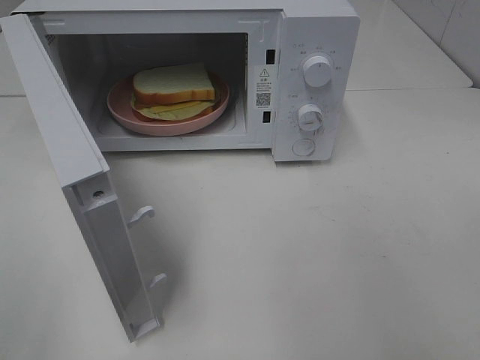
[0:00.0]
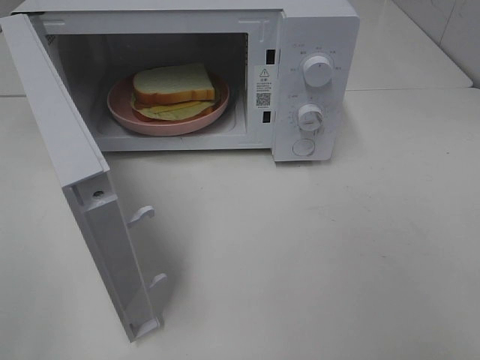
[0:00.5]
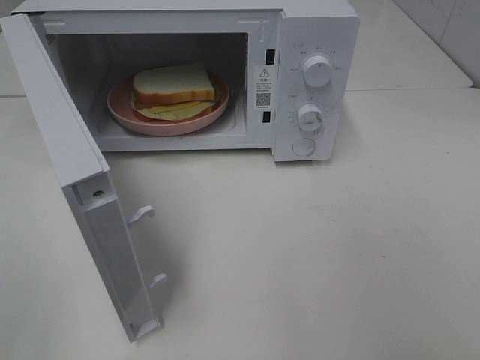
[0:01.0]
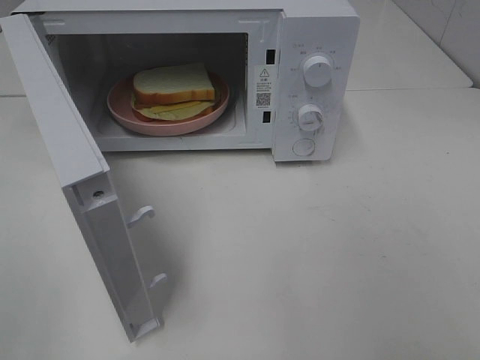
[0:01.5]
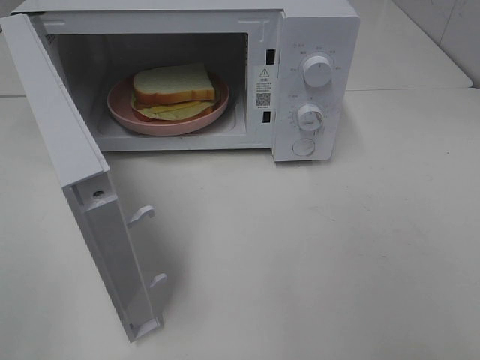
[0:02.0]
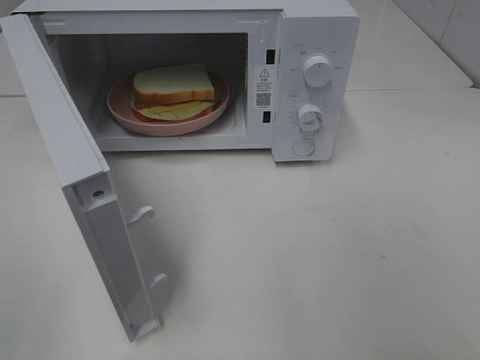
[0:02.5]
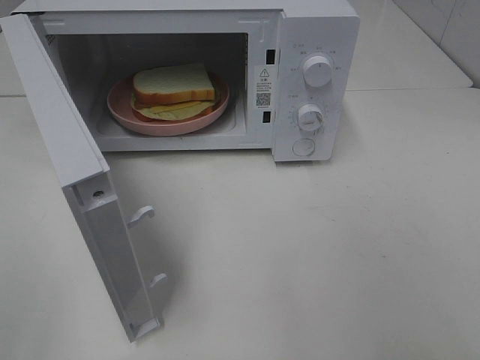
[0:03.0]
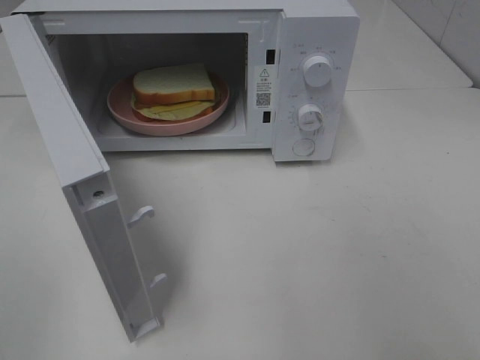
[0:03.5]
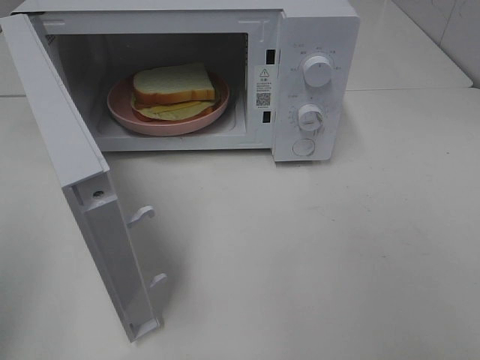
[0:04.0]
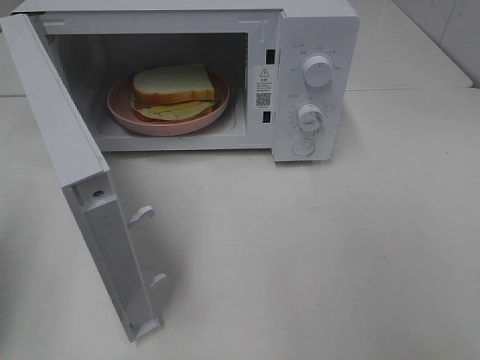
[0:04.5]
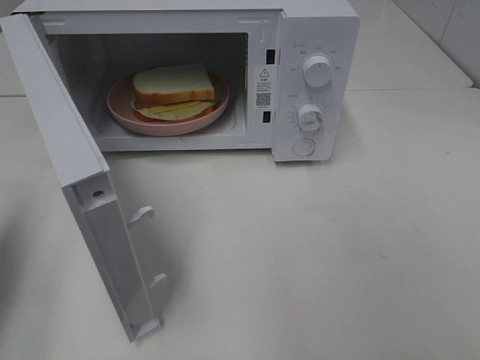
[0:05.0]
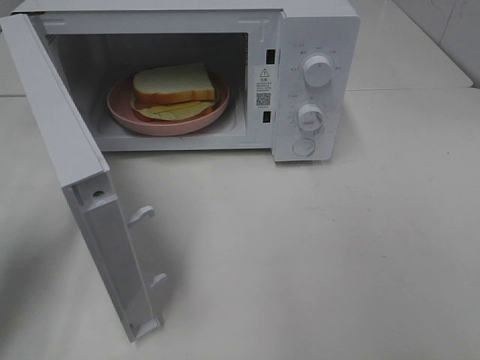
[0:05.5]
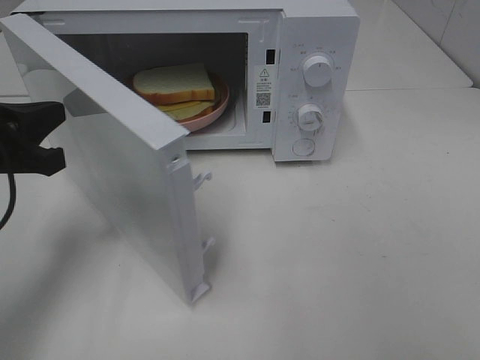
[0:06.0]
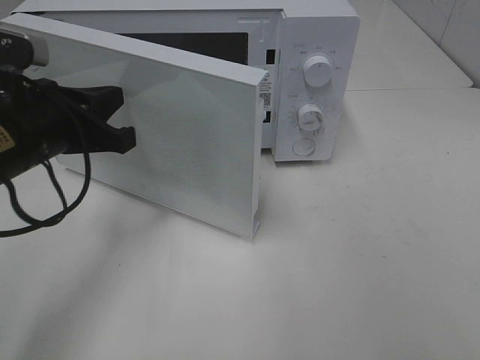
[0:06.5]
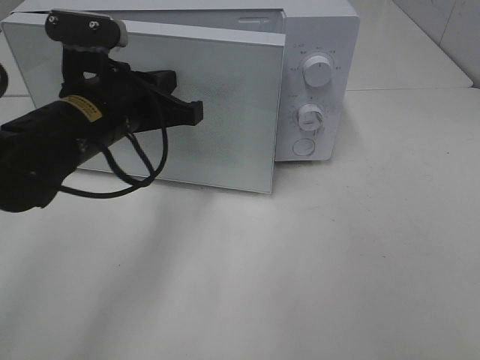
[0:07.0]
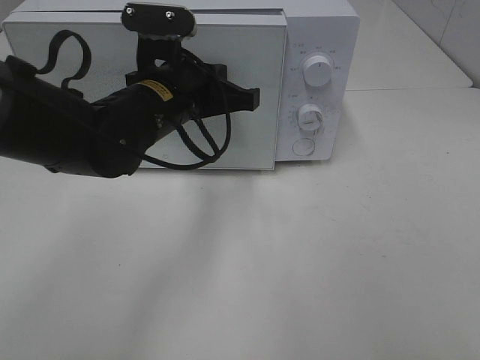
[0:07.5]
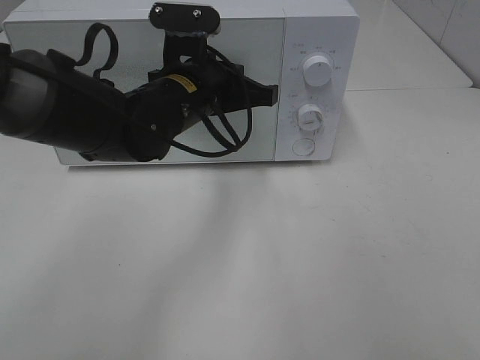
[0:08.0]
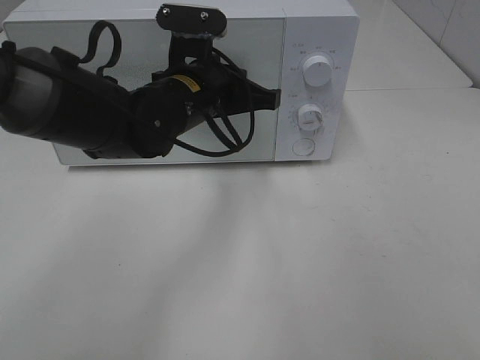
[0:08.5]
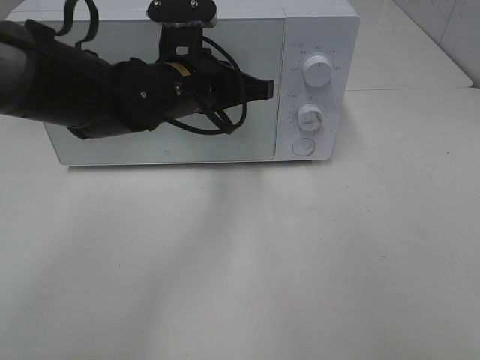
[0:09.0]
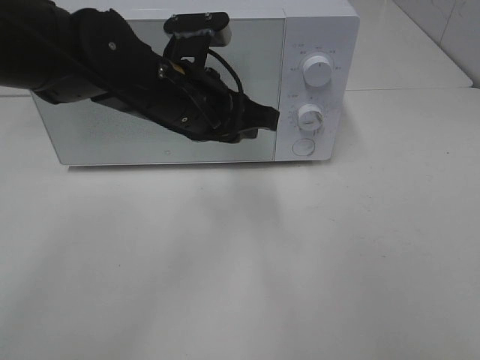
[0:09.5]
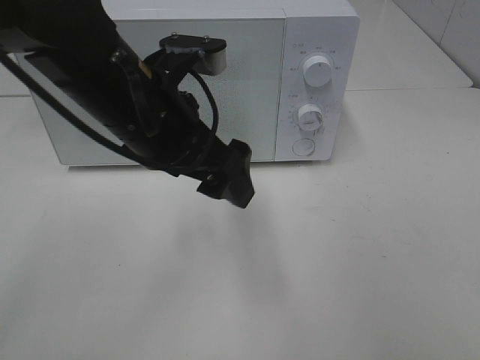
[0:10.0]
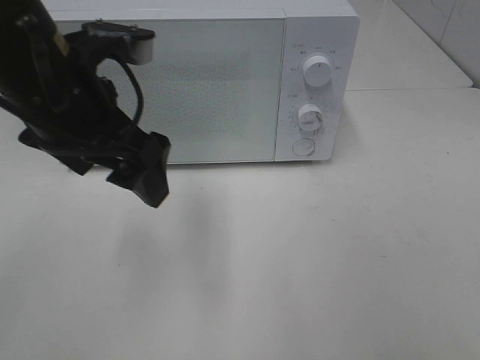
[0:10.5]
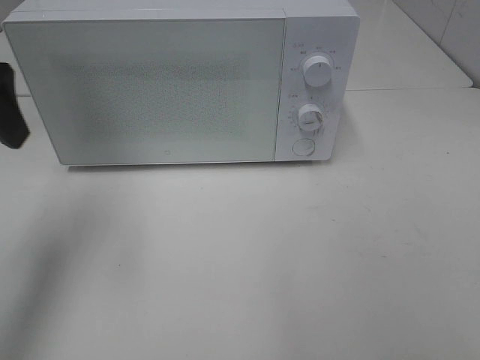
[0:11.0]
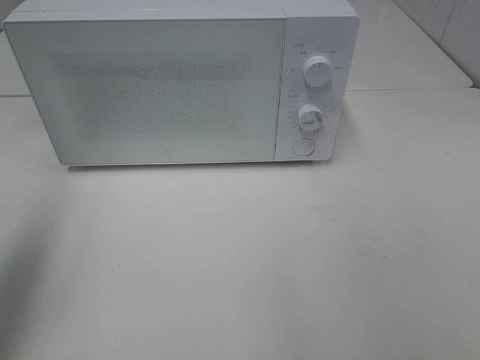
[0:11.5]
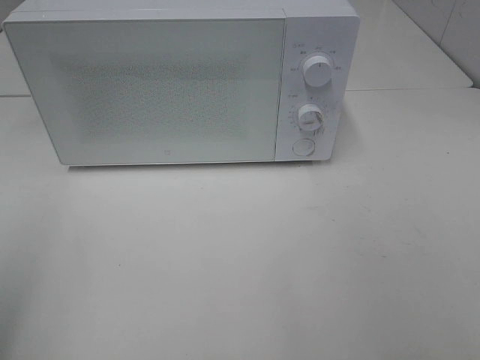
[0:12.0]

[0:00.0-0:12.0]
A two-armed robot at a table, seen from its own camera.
Task of the whole recording: Heat Sandwich.
Step, 0:00.0 to 0:09.5: Left hand: close the microwave door.
0:04.0 to 0:06.0: The left gripper goes about 20 cm forward, downward and to the right.
0:06.0 to 0:08.0: The left gripper heads to the right and forward, covering about 20 cm.
0:08.0 to 0:10.0: The left gripper is displaced backward and upward by approximately 10 cm, and opens.
0:10.0 to 0:12.0: The left gripper is displaced to the left and backward by roughly 30 cm.

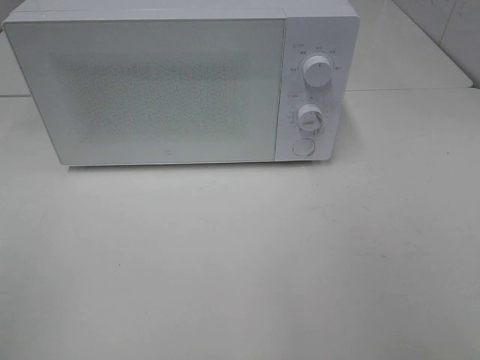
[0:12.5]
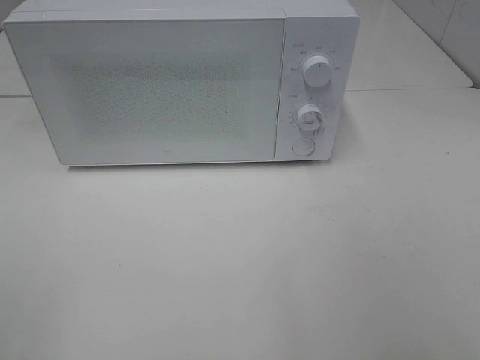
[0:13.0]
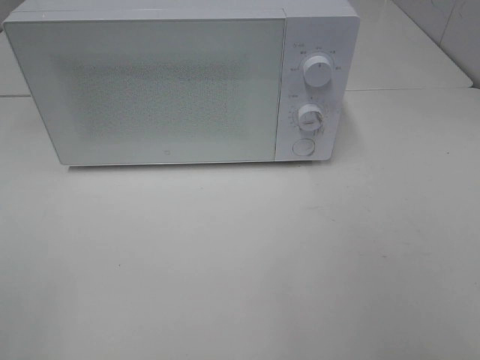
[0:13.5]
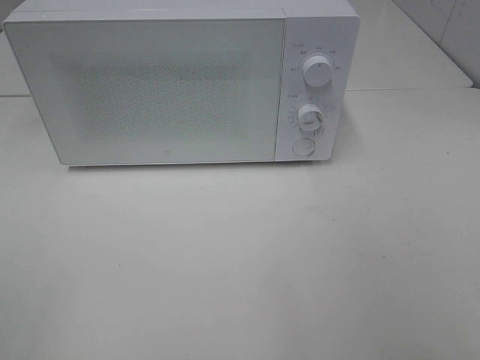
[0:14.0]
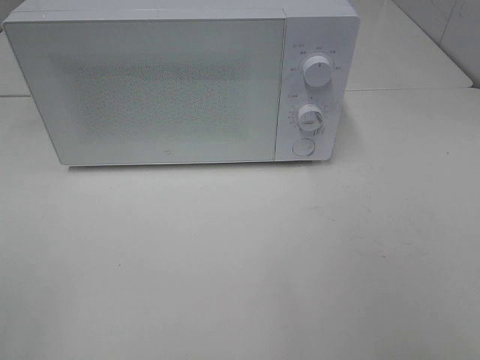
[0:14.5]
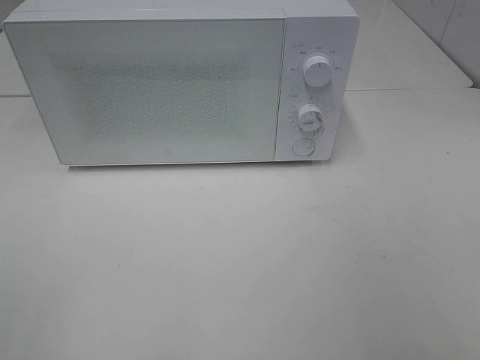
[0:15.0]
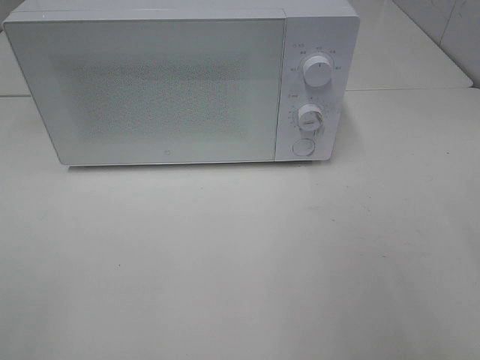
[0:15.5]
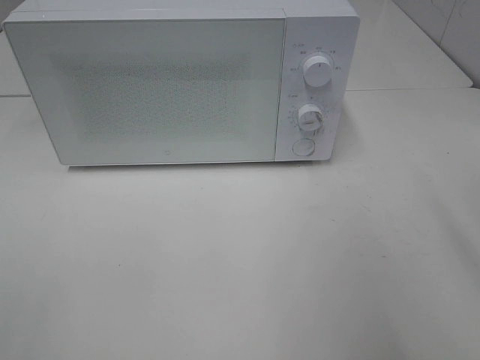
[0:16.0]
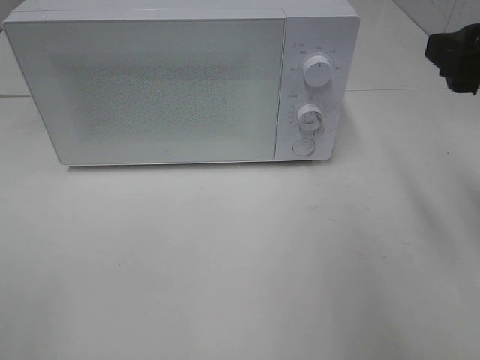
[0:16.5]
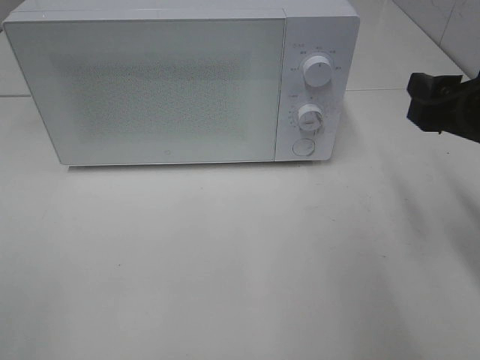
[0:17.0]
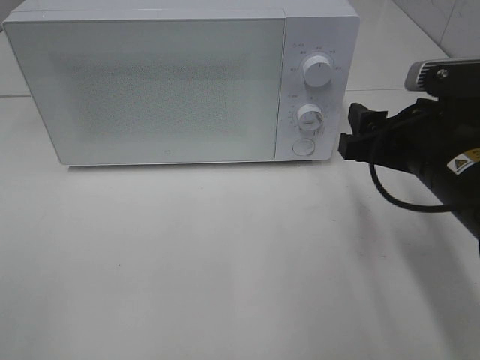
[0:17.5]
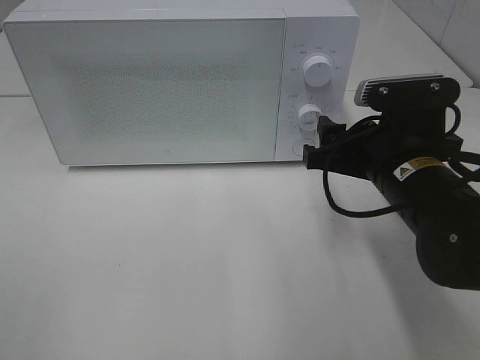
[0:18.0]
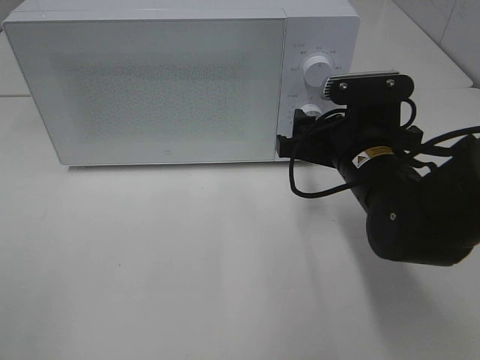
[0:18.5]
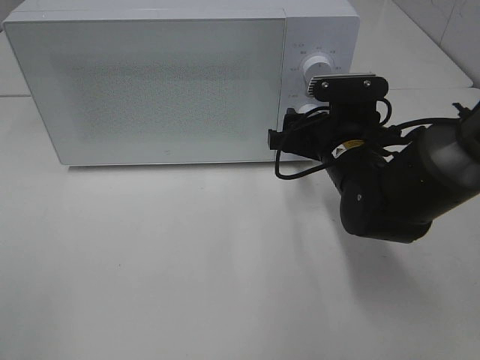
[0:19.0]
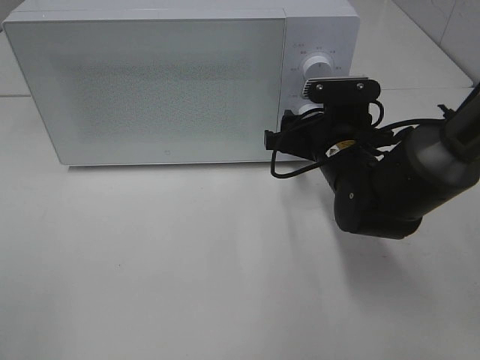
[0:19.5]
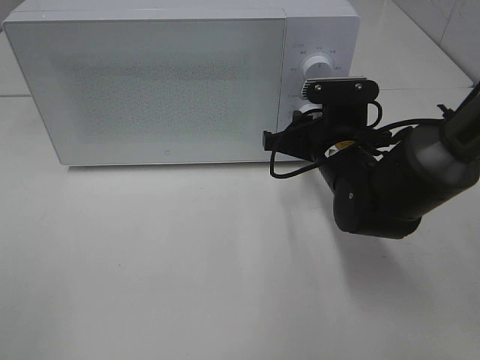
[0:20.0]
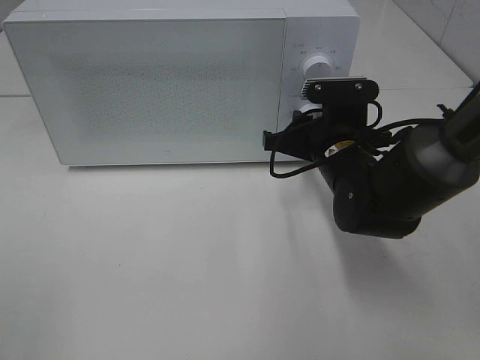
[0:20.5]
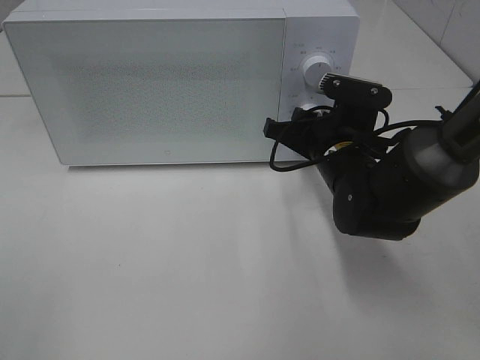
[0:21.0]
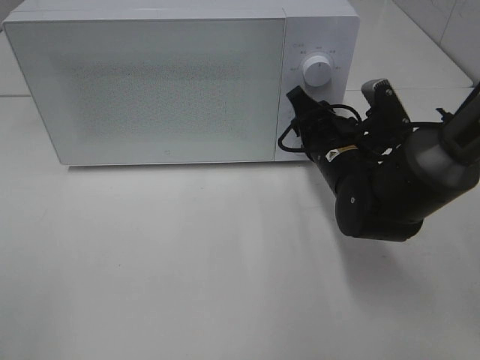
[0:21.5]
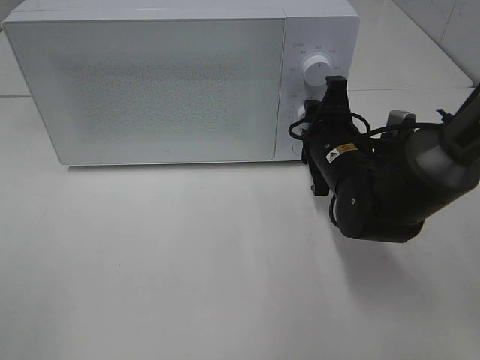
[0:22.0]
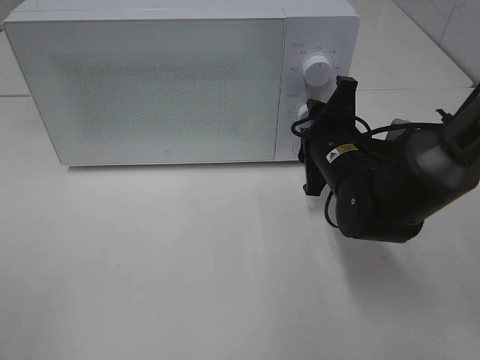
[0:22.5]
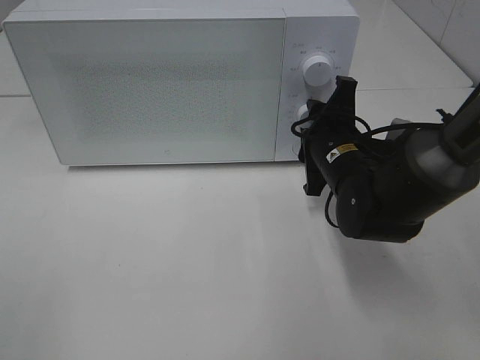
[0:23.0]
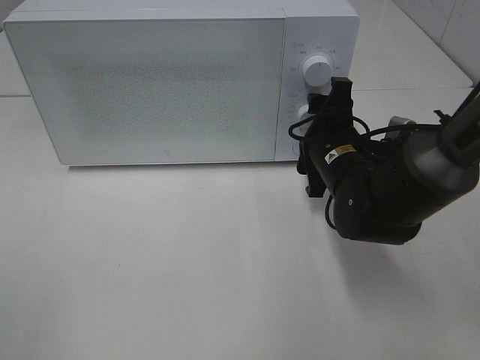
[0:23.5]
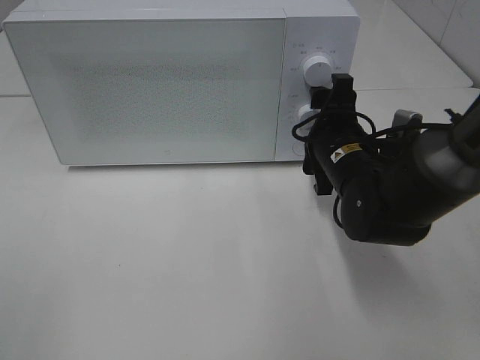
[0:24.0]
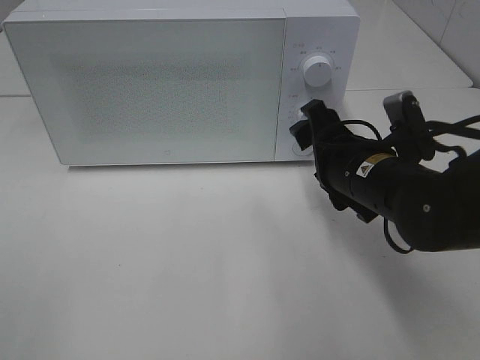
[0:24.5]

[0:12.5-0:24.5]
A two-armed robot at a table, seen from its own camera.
Task of the whole recording: Heat Sandwich.
Step, 0:12.5 to 0:23.5: Right hand: twist timer button.
0:14.5 to 0:16.5: The right gripper goes approximately 20 cm forward.
0:16.5 to 0:18.5: The right gripper is displaced downward, to the left and forward by roughly 20 cm.
0:18.5 to 0:20.5: The right gripper shifts by approximately 5 cm, and closes up.
0:22.5 to 0:24.5: The right gripper heads backward, covering about 5 cm.

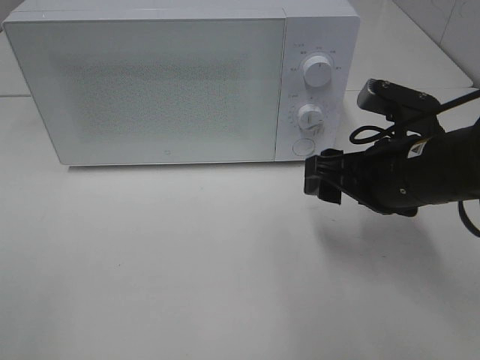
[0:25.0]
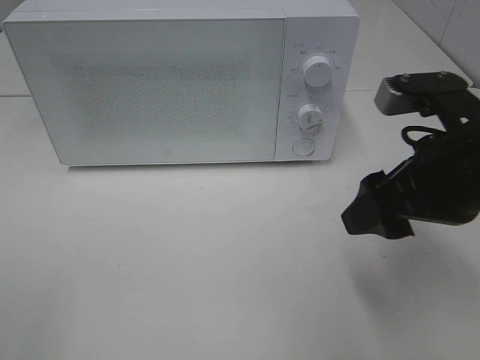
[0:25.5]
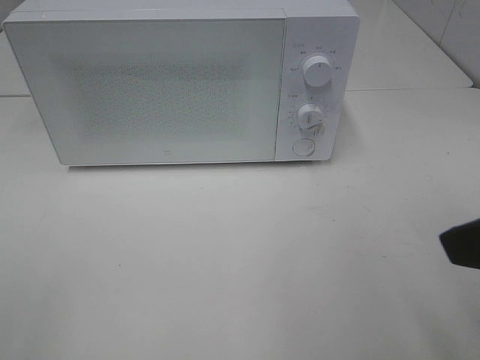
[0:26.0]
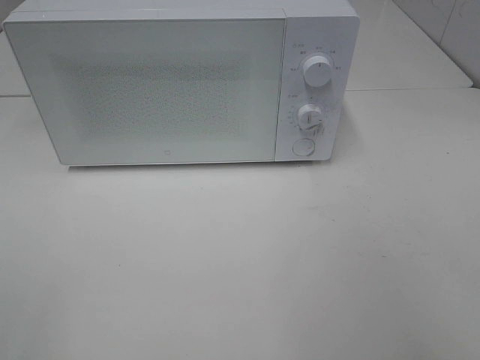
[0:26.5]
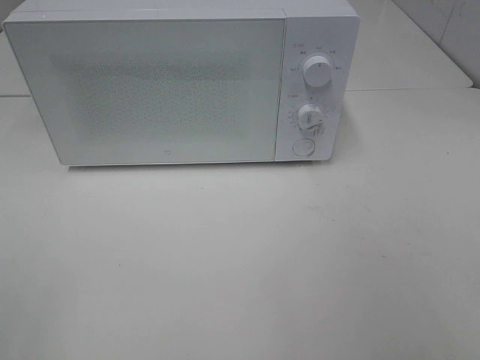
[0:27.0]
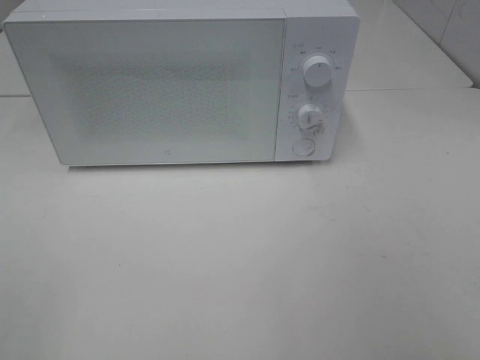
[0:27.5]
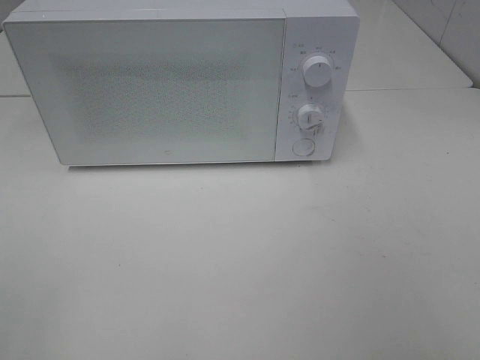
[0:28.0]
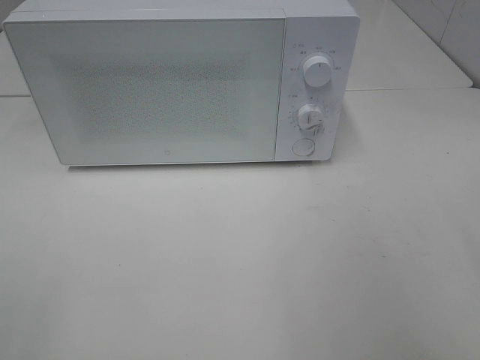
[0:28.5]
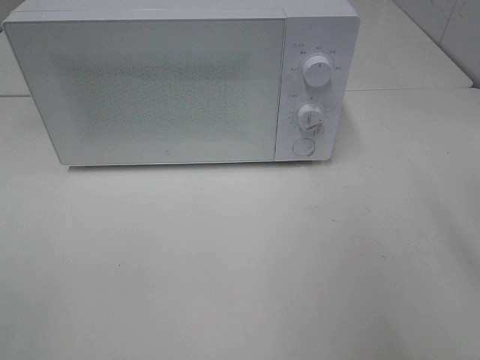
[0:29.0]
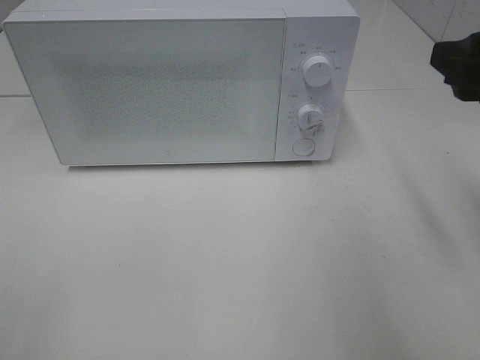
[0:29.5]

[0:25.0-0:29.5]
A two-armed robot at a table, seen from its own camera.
Task of the whole recording: Heat Sandwich.
0:25.0 to 0:27.0: The right gripper moves backward, to the right and upward, roughly 30 cm.
0:27.0 to 0:29.5: The right gripper travels forward by approximately 20 cm.
